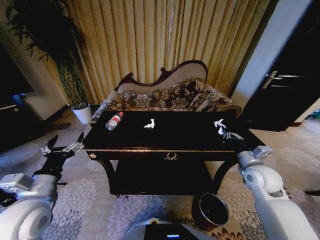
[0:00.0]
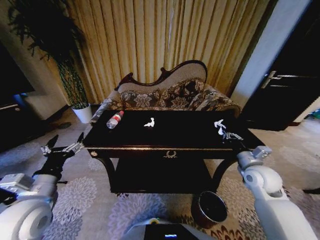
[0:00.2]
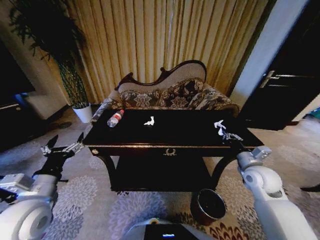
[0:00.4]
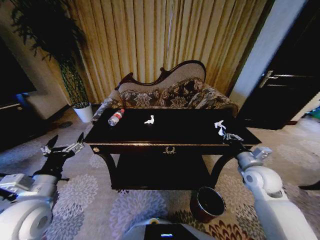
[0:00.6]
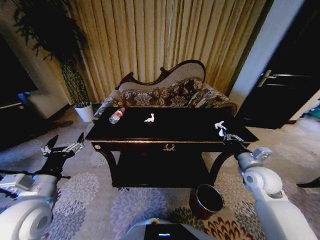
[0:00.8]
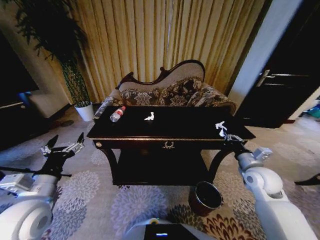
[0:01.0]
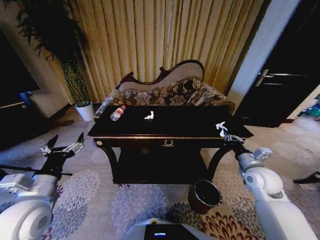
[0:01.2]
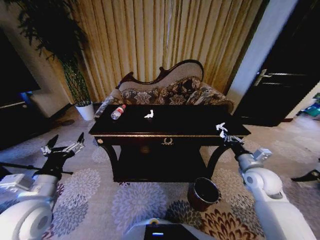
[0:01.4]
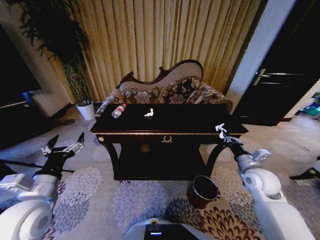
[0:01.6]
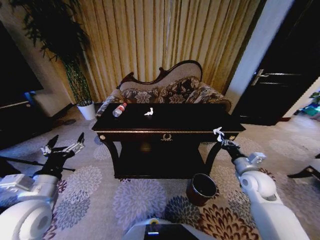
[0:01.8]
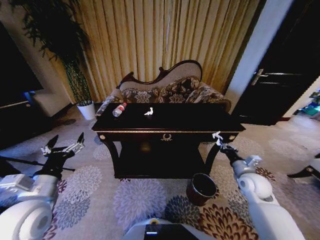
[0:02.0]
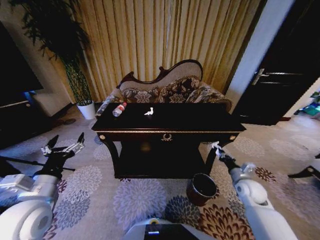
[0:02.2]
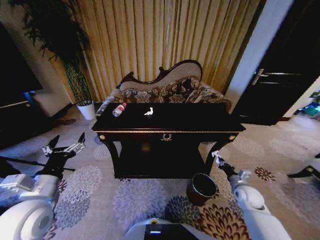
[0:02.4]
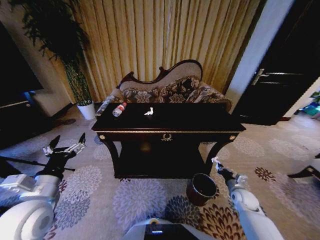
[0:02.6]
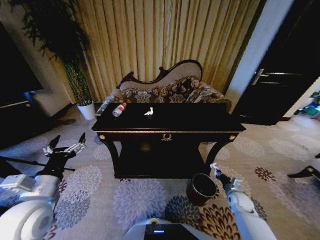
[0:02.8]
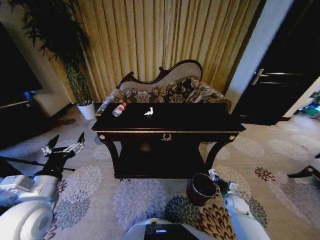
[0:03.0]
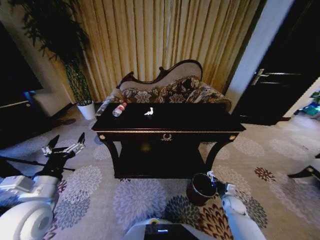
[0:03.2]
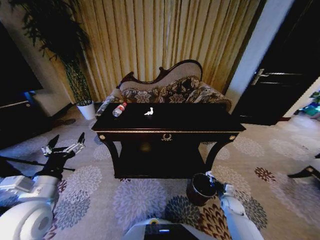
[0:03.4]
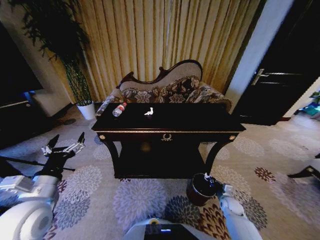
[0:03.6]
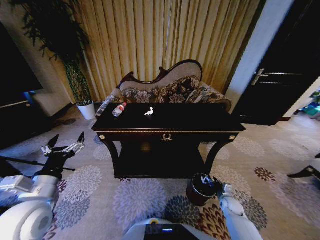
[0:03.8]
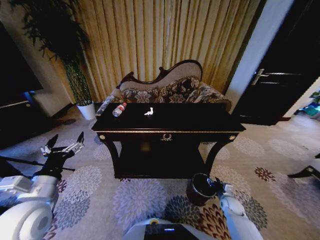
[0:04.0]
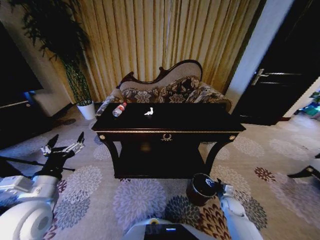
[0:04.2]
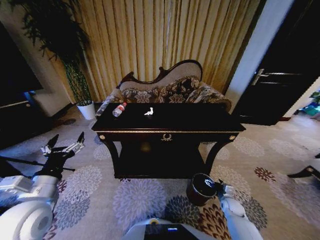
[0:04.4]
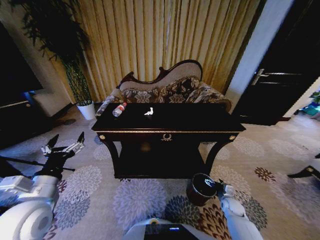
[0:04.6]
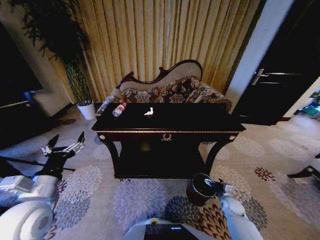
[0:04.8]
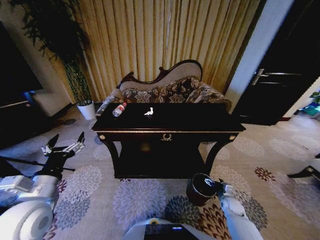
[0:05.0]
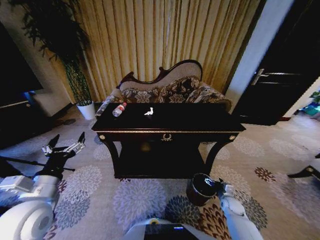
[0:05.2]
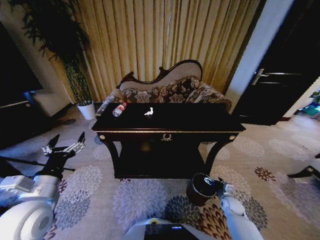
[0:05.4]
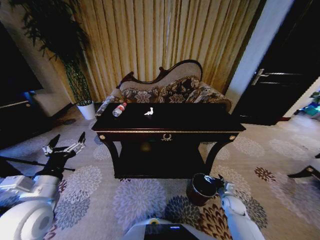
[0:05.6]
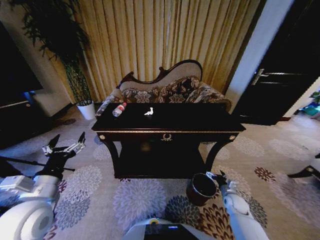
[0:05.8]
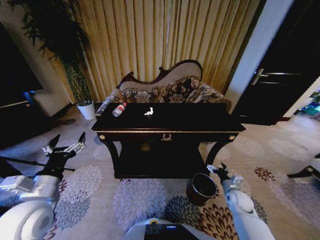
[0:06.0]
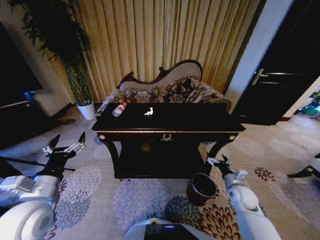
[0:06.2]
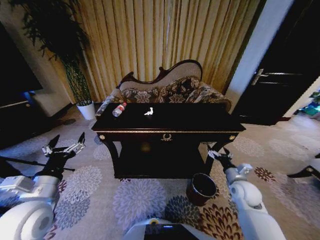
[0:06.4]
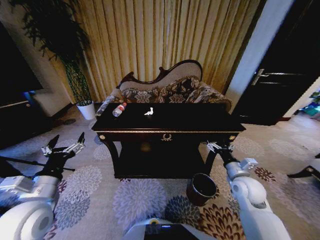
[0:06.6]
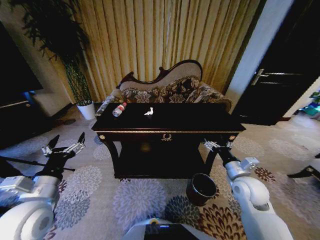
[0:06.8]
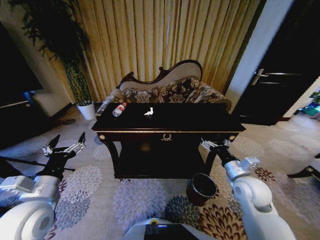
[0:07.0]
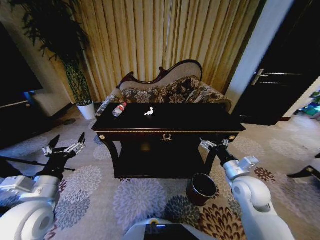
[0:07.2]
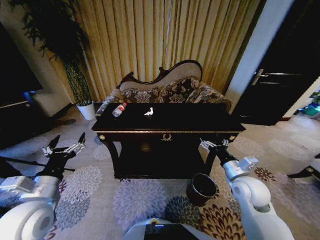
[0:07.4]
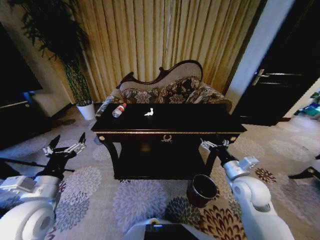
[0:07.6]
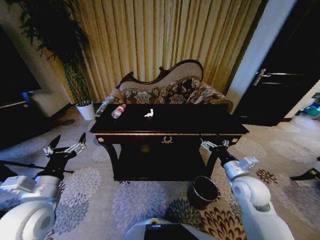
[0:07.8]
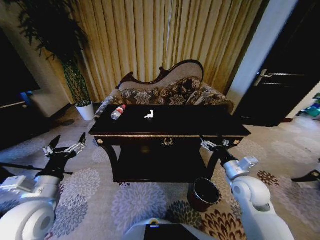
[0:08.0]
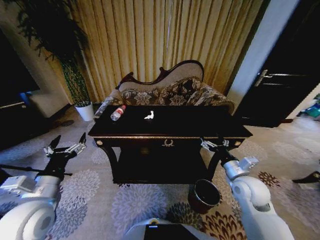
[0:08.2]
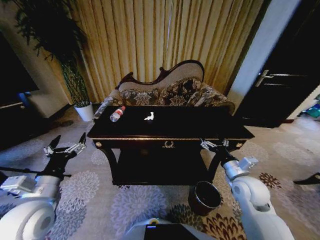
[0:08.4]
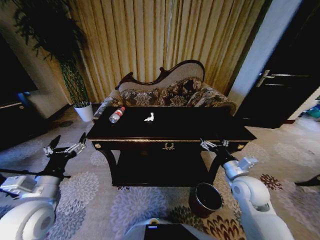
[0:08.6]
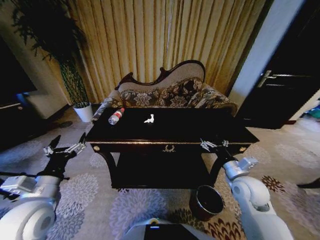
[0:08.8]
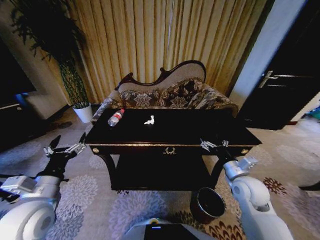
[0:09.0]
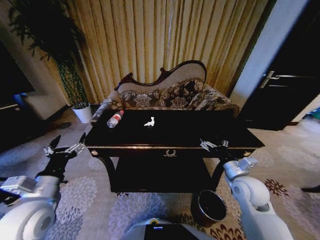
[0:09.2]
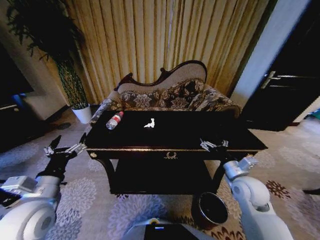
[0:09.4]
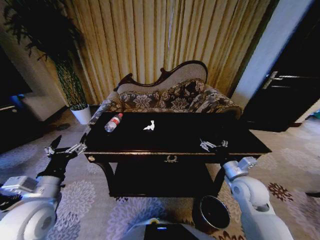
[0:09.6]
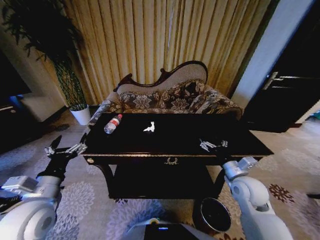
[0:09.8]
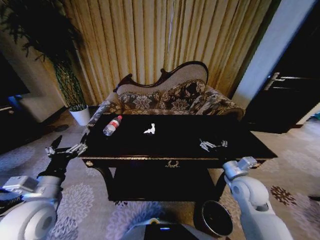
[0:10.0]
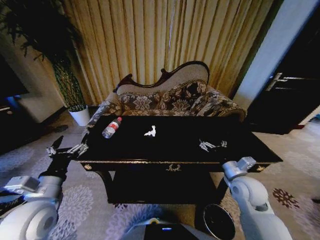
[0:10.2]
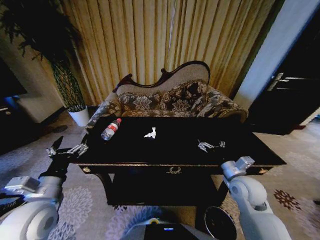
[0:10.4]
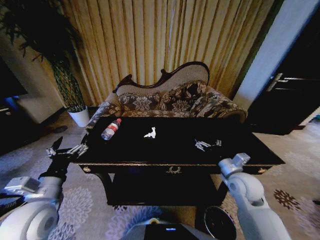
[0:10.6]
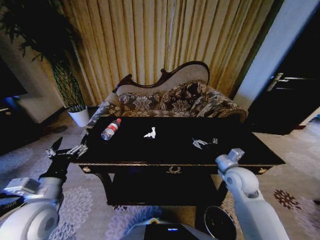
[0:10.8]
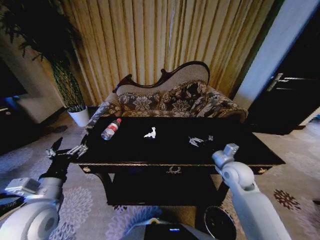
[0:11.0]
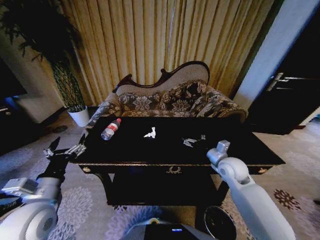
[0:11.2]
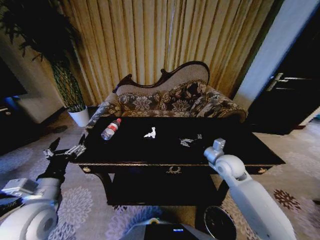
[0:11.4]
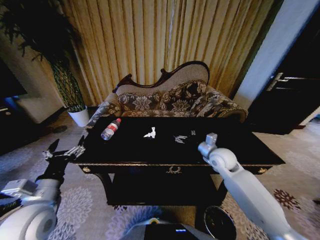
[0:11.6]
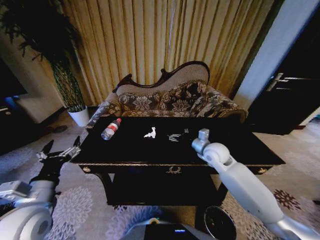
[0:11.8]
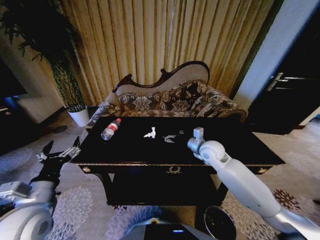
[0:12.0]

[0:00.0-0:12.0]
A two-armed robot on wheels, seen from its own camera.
Task of the whole recording: Move to the front of the table and place the trash on the table into the trash bin.
0:01.6 to 0:03.0: The right gripper heads downward, covering some 25 cm.
0:03.0 to 0:04.4: The right gripper opens.
0:04.4 to 0:06.0: The right gripper travels upward by some 10 cm.
0:06.0 to 0:07.6: The right gripper travels upward and to the left by approximately 20 cm.
0:10.4 to 0:12.0: The right gripper moves forward and to the left, about 15 cm.

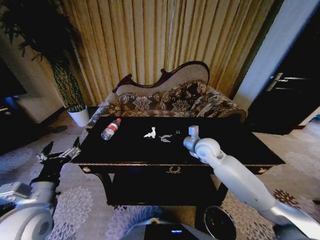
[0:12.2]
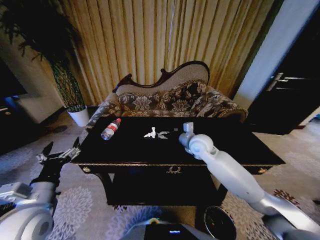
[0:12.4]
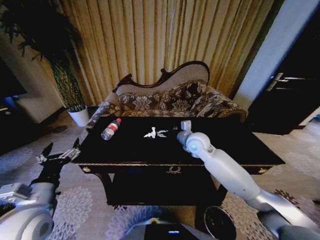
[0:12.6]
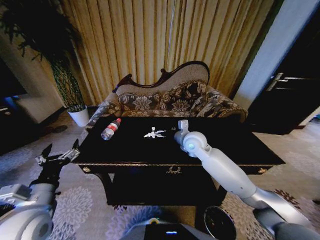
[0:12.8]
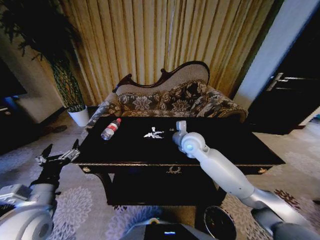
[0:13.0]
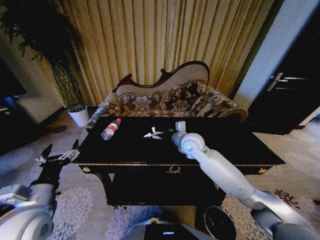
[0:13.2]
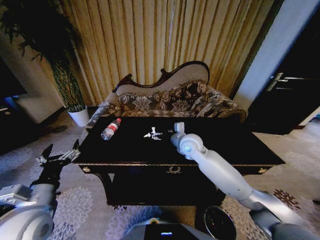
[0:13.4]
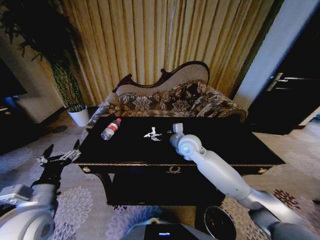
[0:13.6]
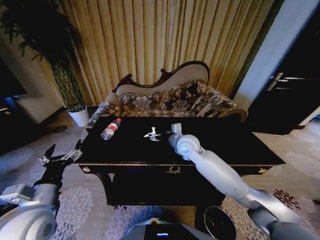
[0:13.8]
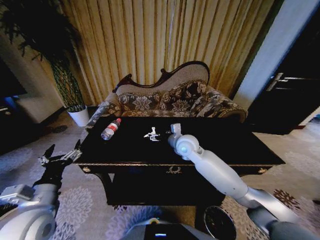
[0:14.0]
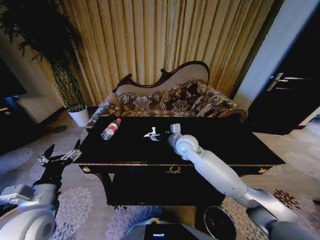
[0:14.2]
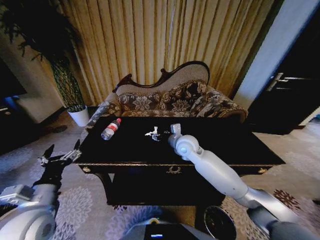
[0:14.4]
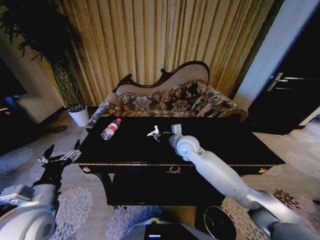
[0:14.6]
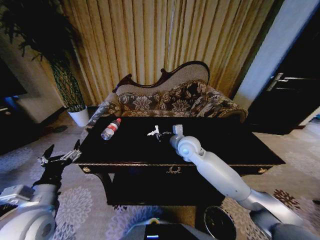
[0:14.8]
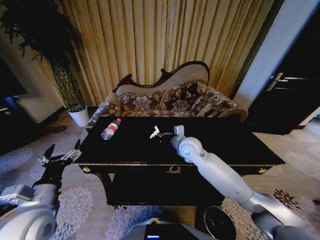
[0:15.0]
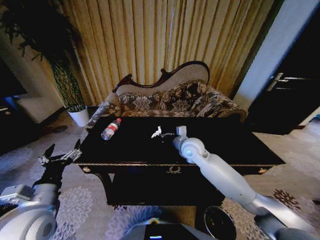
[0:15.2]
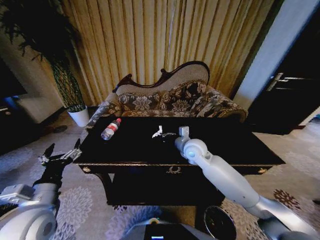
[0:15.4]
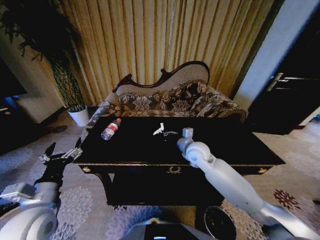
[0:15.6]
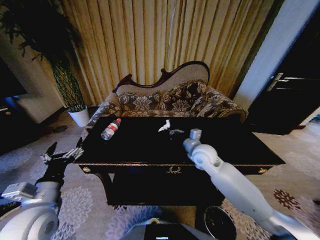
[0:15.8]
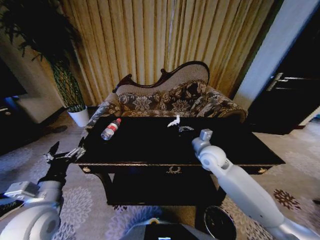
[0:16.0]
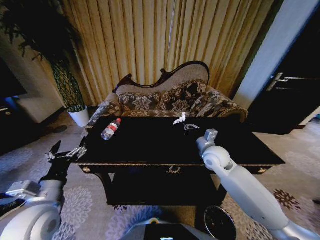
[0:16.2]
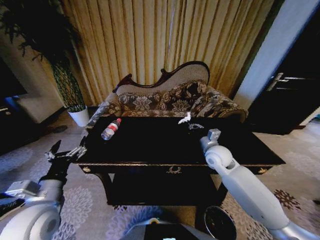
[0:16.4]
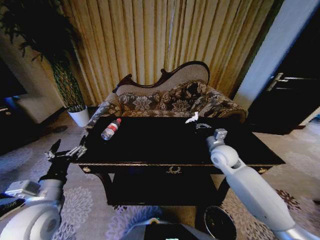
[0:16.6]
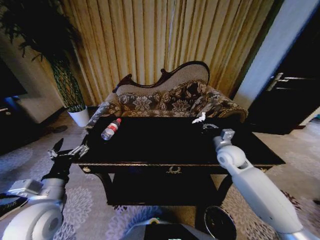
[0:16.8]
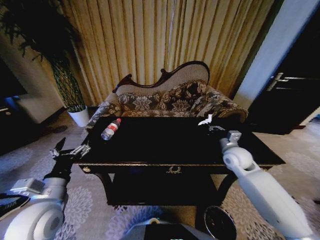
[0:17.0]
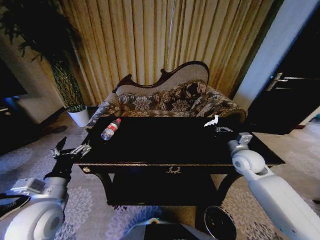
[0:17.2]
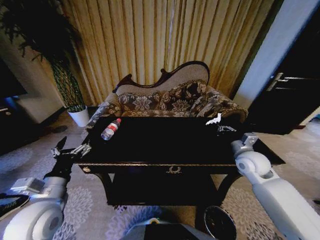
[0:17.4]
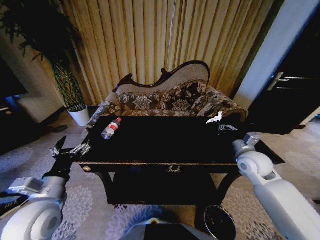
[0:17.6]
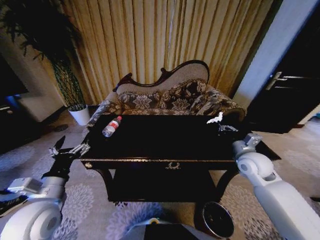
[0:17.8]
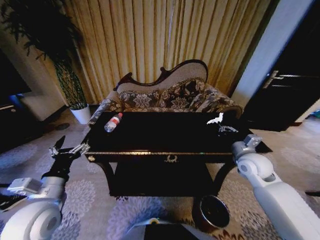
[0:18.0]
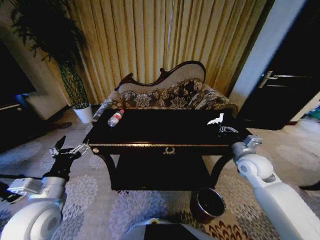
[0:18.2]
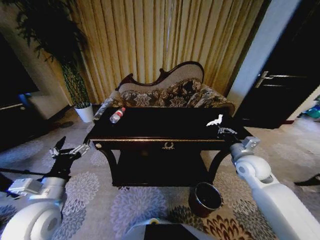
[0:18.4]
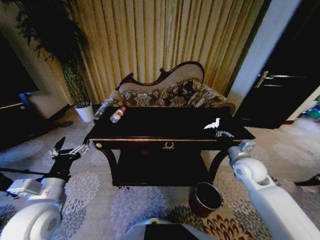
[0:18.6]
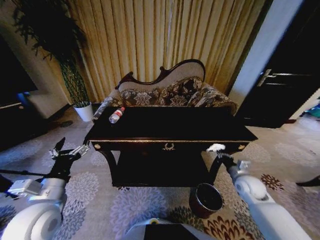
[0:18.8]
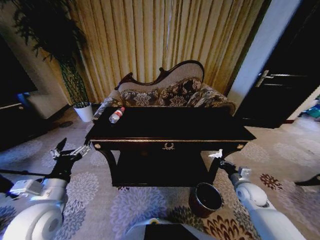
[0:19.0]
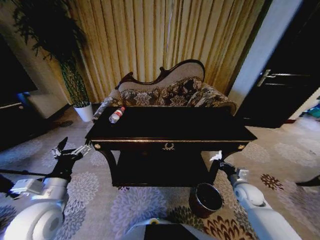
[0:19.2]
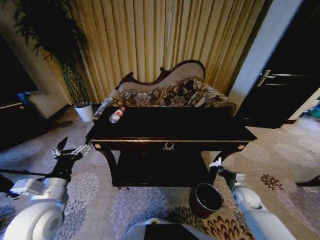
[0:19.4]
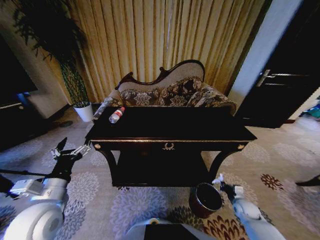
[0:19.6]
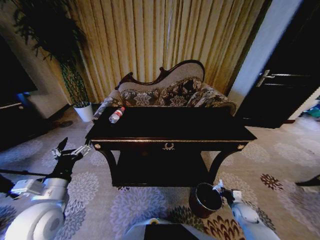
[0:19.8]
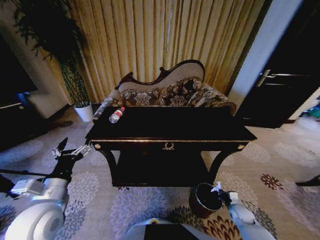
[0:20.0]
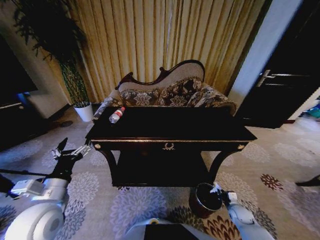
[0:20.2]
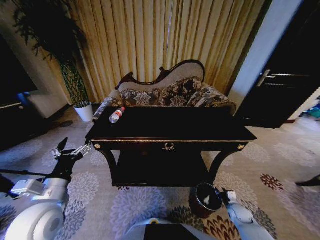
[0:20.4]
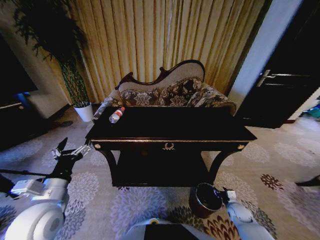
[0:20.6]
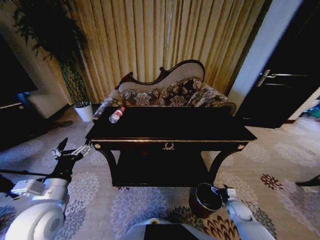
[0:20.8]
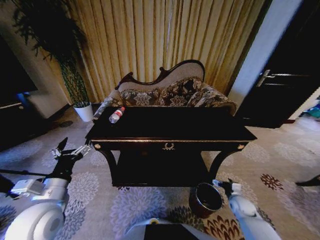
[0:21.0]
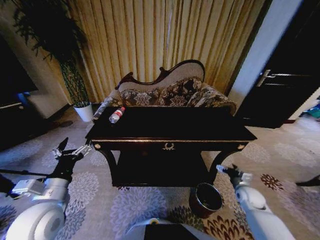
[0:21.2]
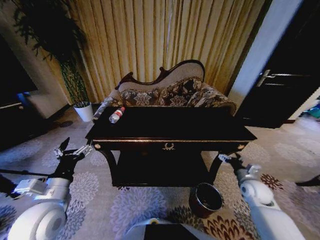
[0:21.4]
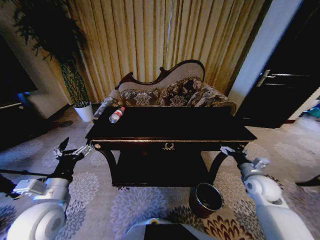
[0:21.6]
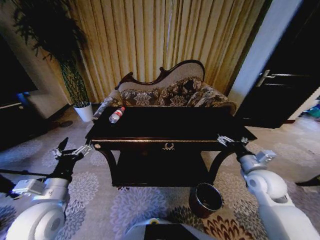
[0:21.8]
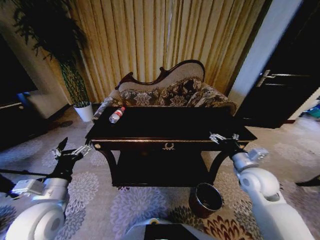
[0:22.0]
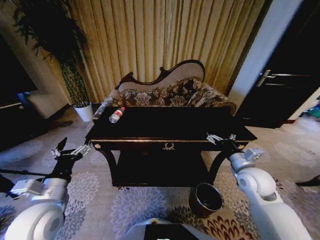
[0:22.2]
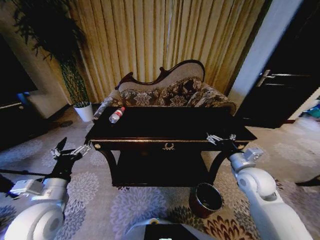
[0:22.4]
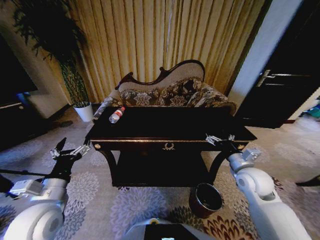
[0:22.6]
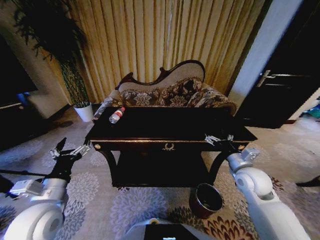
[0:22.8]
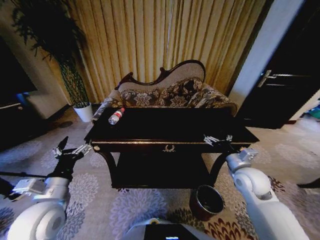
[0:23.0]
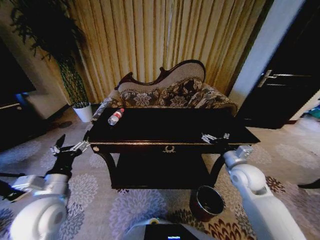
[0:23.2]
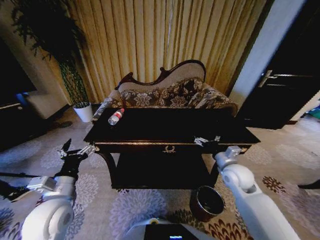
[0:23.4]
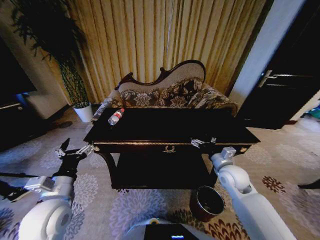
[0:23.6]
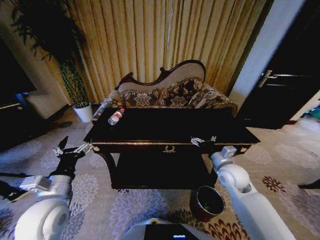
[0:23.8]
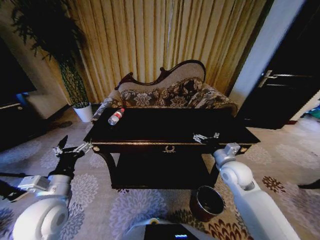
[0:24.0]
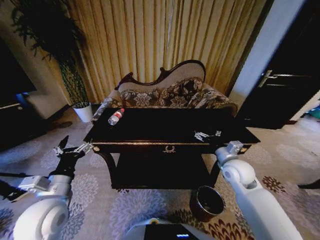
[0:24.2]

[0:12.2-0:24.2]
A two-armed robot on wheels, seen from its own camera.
Task of the whole recording: Move to the front of the table and place the trash on the table into the trash bin.
0:12.2 to 0:13.8: The right gripper travels to the left by about 10 cm.
0:13.8 to 0:15.2: The right gripper closes up.
0:15.2 to 0:16.6: The right gripper shifts some 15 cm to the right.
0:16.6 to 0:18.2: The right gripper is displaced to the right and backward by about 10 cm.
0:18.2 to 0:19.8: The right gripper goes some 30 cm downward.
0:19.8 to 0:21.2: The right gripper travels upward and forward by some 10 cm, and opens its fingers.
0:21.2 to 0:22.6: The right gripper is displaced upward and to the left by some 20 cm.
0:22.6 to 0:24.2: The right gripper shifts by roughly 5 cm.
